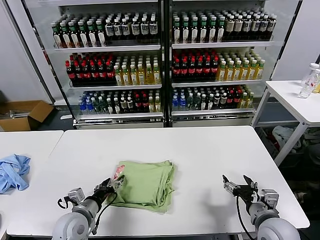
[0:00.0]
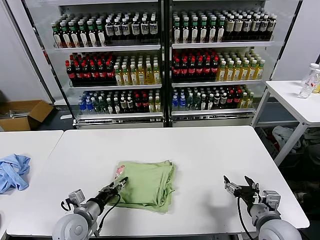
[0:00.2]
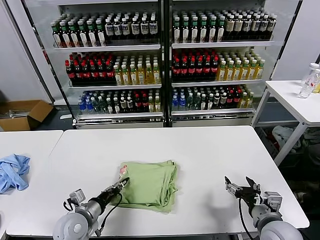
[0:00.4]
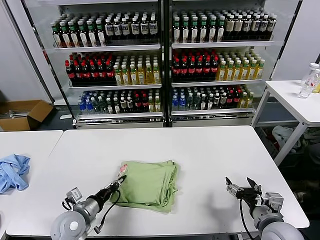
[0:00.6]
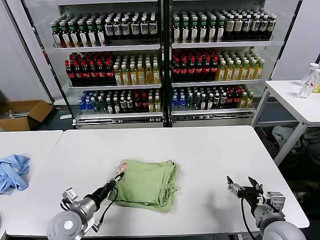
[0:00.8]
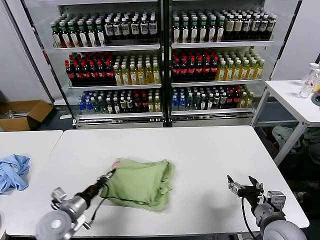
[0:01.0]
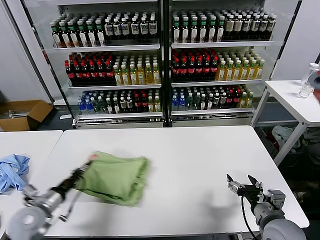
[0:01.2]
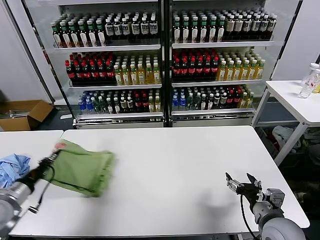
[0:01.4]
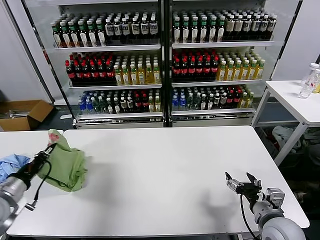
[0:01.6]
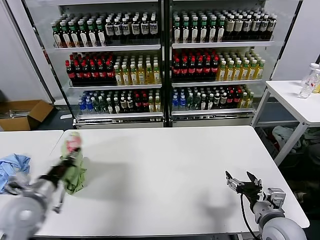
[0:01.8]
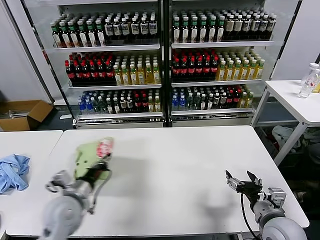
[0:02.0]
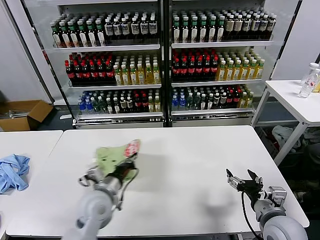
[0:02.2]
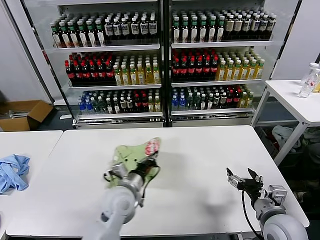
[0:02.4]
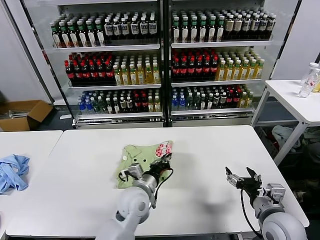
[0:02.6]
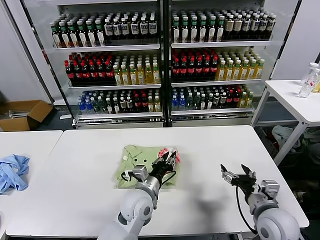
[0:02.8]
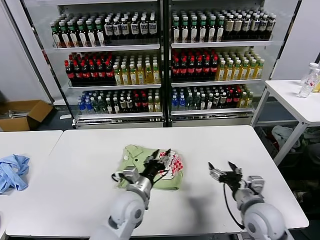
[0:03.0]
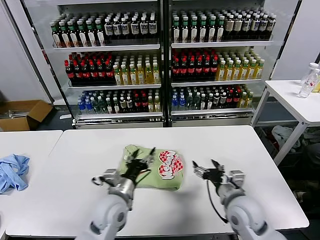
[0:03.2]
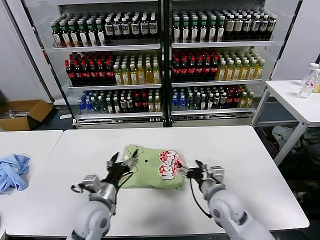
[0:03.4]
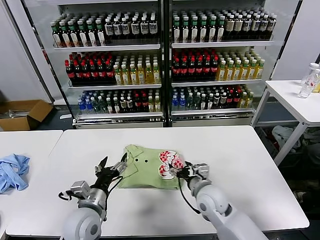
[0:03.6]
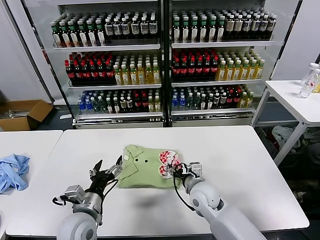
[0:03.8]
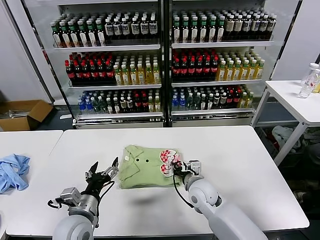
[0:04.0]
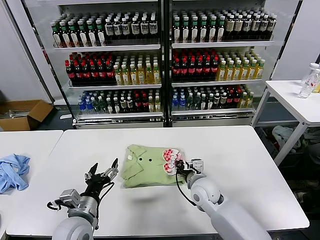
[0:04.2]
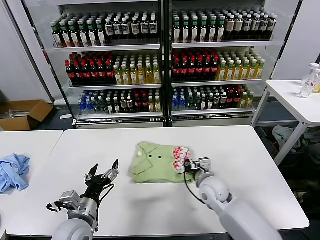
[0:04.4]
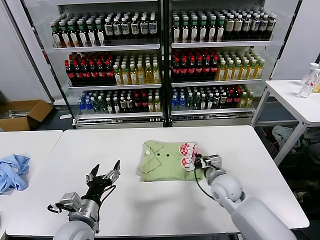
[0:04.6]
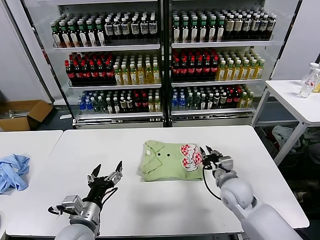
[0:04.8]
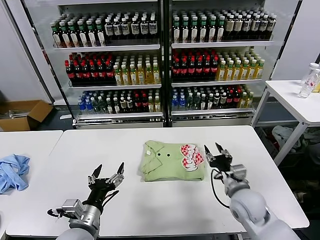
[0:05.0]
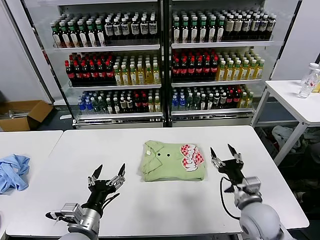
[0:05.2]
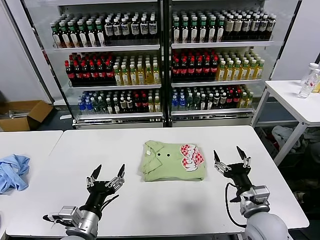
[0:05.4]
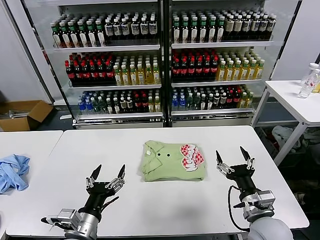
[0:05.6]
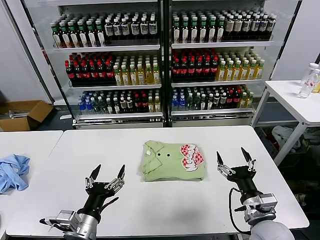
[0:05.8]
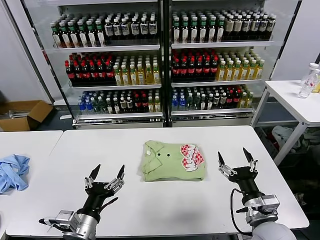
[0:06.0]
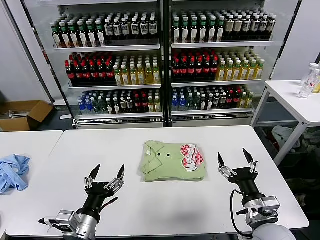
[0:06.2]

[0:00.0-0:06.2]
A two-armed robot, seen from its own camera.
Task of the whole recording: fold and organize the clothes.
Step, 0:00.0 to 0:02.8: Flip the folded clothes over with left gripper.
Step, 0:03.0 to 0:04.6: Drag the clothes to the center of the table.
0:00.0 to 0:01.6: The left gripper travels to the left and upward by some 20 cm, and closes its fingers.
0:01.6 to 0:03.2: The right gripper goes approximately 10 cm to the left and forward. Meanwhile the left gripper heads to the right, covering roughly 30 cm, and opens up.
0:03.2 to 0:04.6: The left gripper is displaced to the left and backward by some 10 cm. Meanwhile the right gripper goes some 10 cm forward, moves roughly 10 cm to the left and comes back, and closes.
0:04.6 to 0:06.2: The left gripper heads backward, covering some 5 cm; the right gripper shifts approximately 20 cm backward, and opens.
